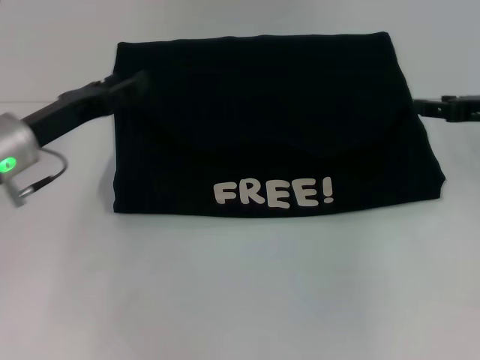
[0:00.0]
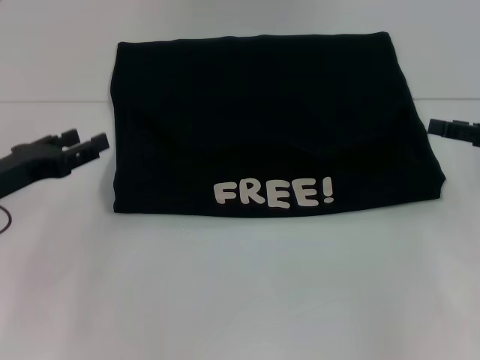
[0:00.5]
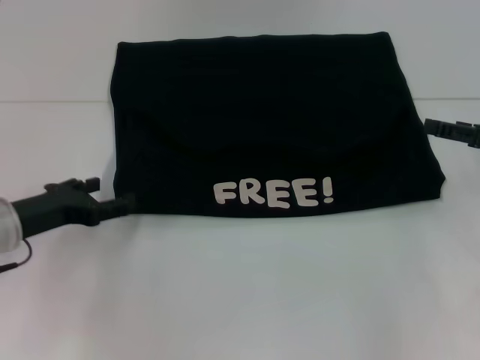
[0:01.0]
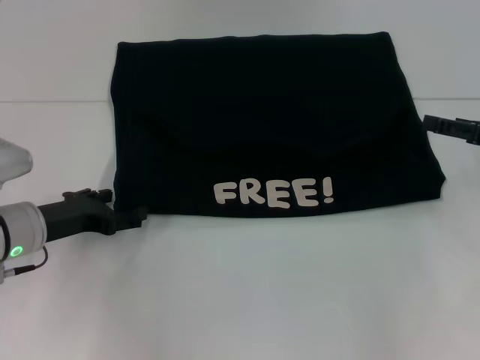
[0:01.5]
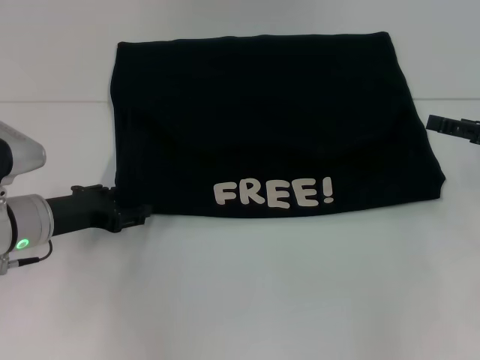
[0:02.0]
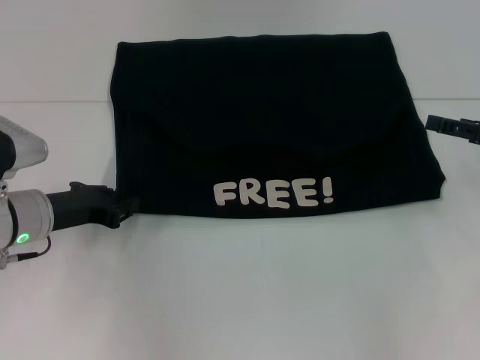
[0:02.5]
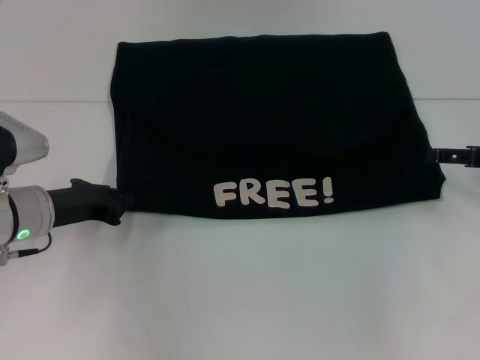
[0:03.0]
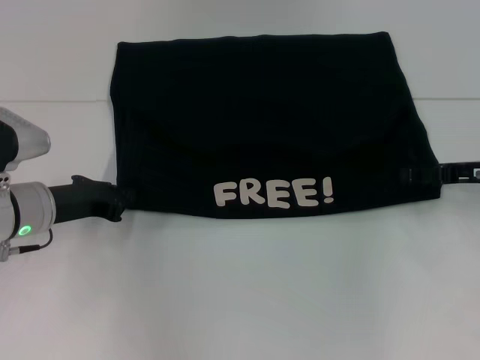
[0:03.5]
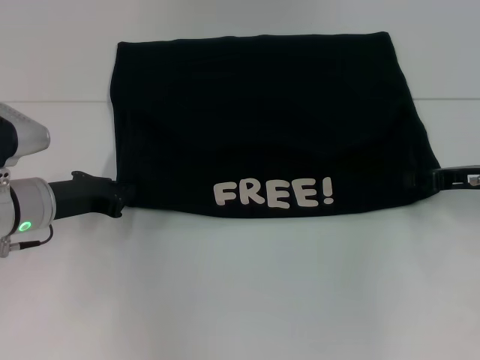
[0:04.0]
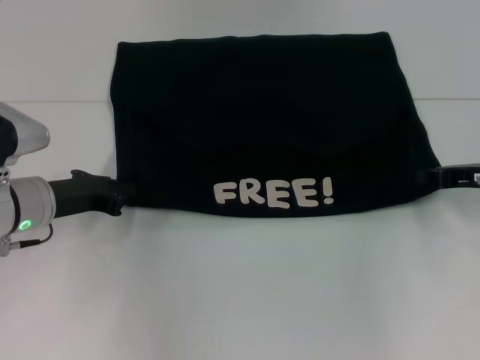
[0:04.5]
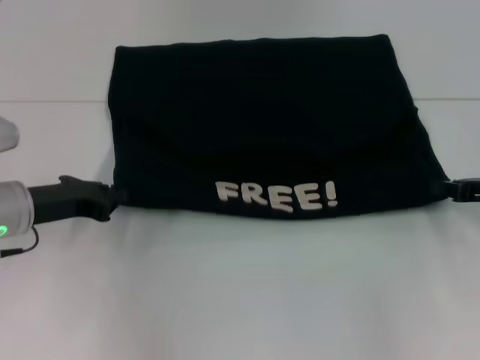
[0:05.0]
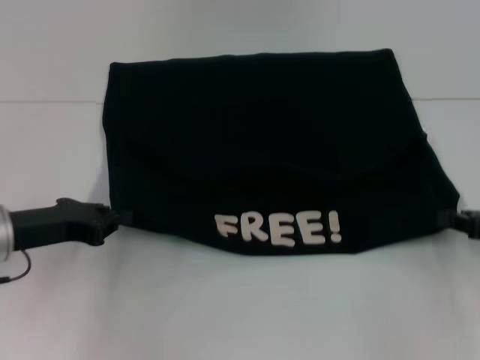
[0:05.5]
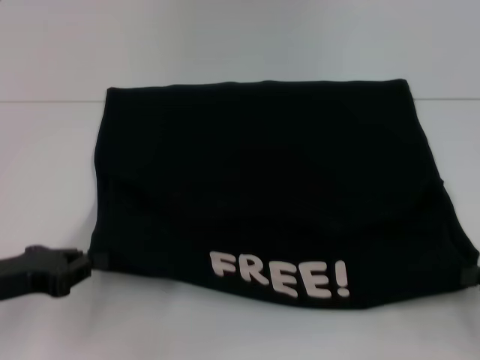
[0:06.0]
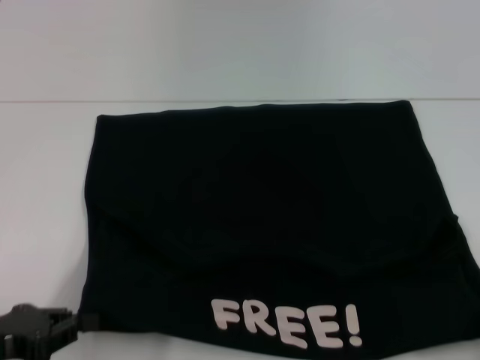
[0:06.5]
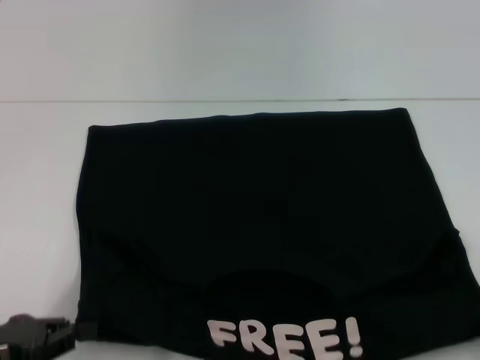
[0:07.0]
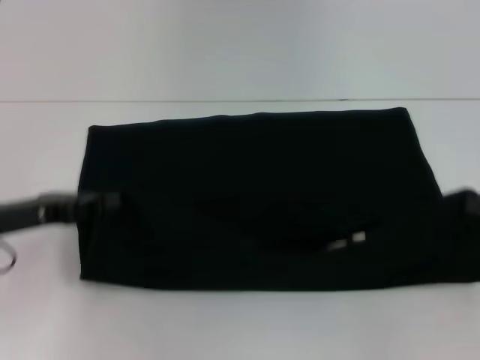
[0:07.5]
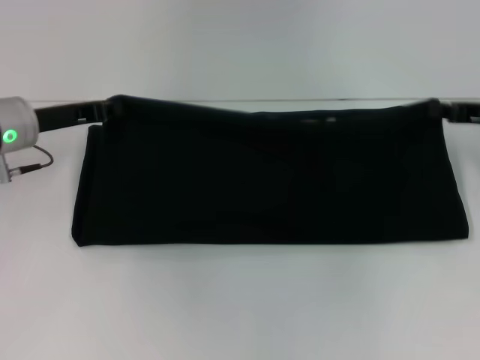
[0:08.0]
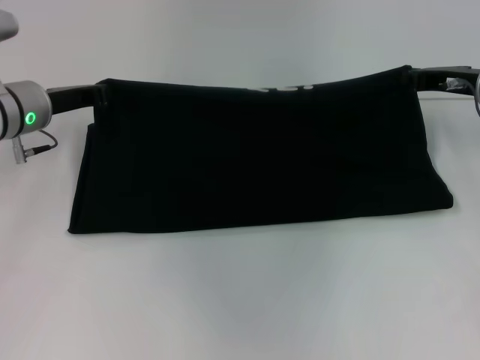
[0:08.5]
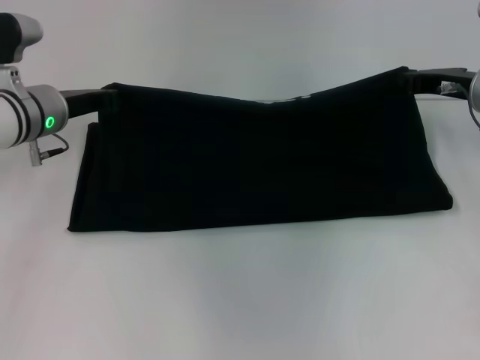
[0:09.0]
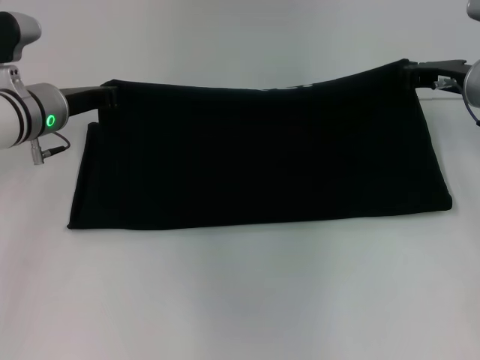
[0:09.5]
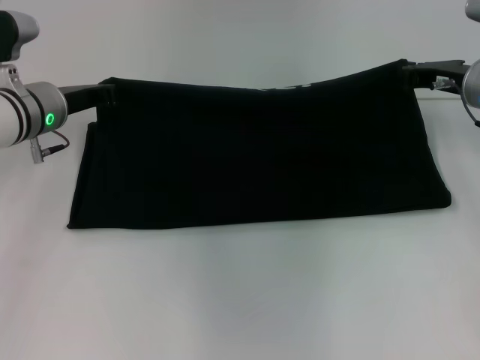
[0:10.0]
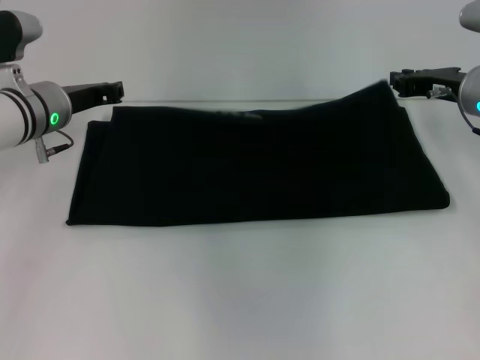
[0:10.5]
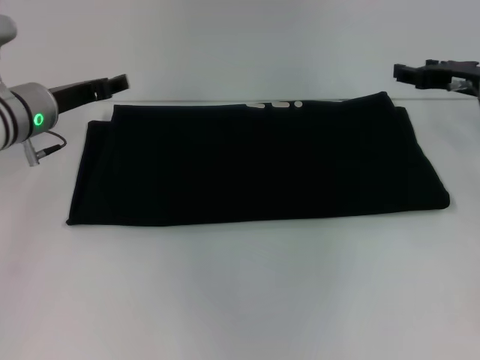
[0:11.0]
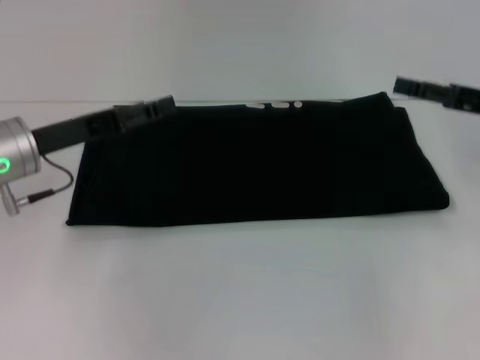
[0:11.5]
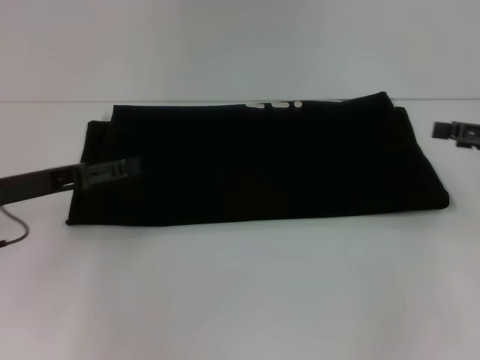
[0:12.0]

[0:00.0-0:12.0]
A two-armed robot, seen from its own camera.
Step, 0:00.0 to 0:06.5: Pull the clothes with your left hand.
Step, 0:00.0 to 0:06.5: Pull the clothes with your right hand.
Step, 0:07.0 to 0:11.0: Fold the clothes with your right hand.
0:00.0 to 0:02.0: The right gripper ends up roughly 5 cm from where it was. Meanwhile the left gripper goes some 5 cm downward.
0:02.0 to 0:04.0: The right gripper changes place by approximately 5 cm, and closes its fingers, while the left gripper closes its fingers.
0:04.0 to 0:06.0: The left gripper is displaced backward and to the left by some 10 cm. The right gripper moves backward and to the right, some 15 cm, and closes up.
0:06.0 to 0:08.0: The two grippers go some 15 cm forward.
0:08.0 to 0:10.0: The right gripper shifts roughly 5 cm to the left.
0:10.0 to 0:12.0: The right gripper heads backward and to the right, covering some 15 cm, and opens its fingers; the left gripper moves backward and to the left, about 15 cm, and opens.

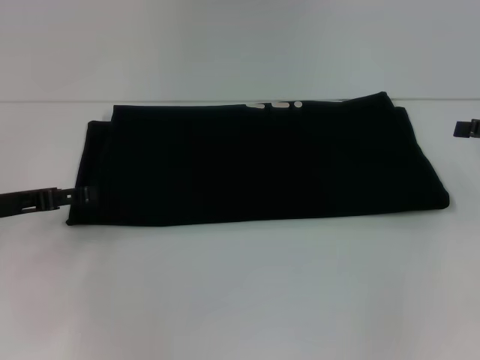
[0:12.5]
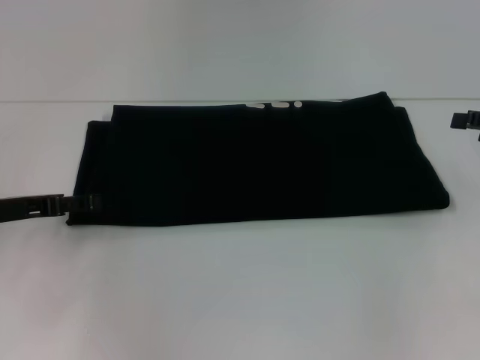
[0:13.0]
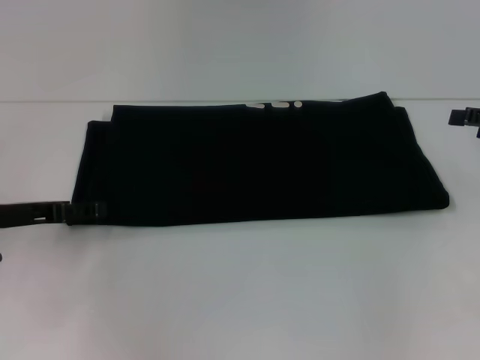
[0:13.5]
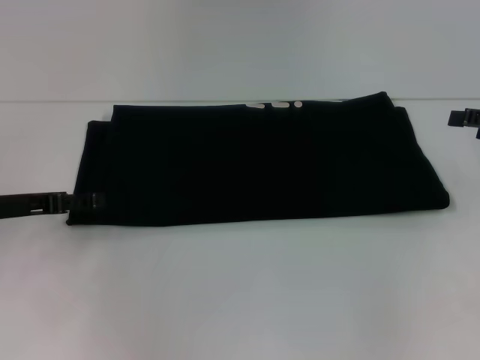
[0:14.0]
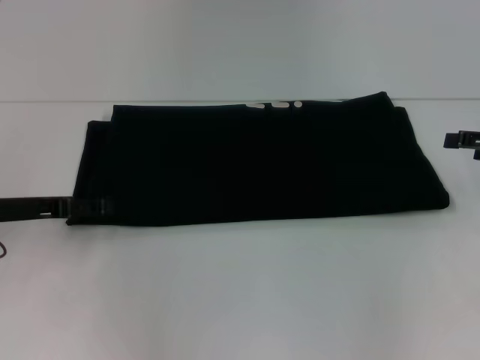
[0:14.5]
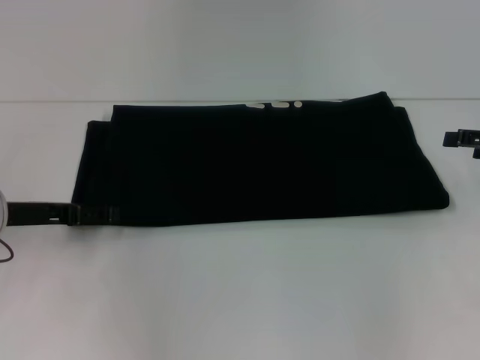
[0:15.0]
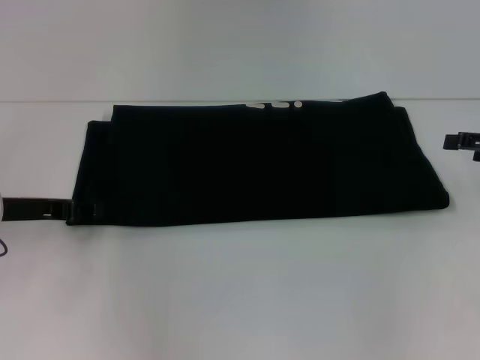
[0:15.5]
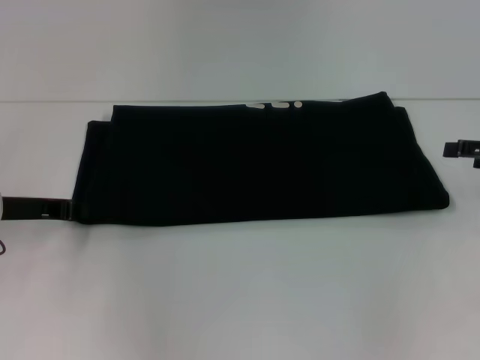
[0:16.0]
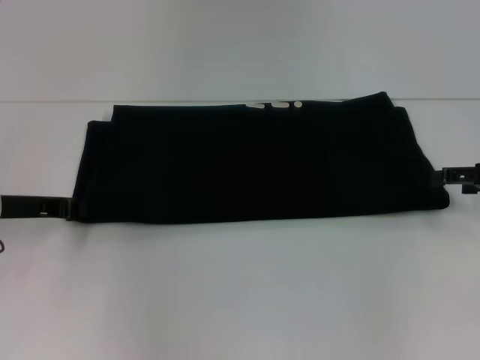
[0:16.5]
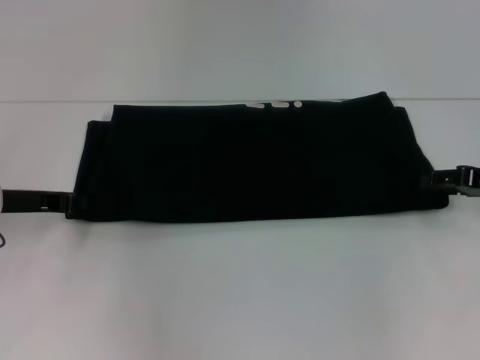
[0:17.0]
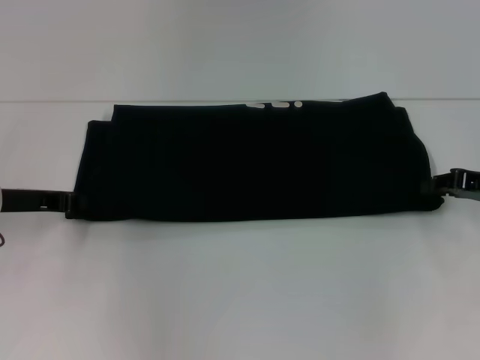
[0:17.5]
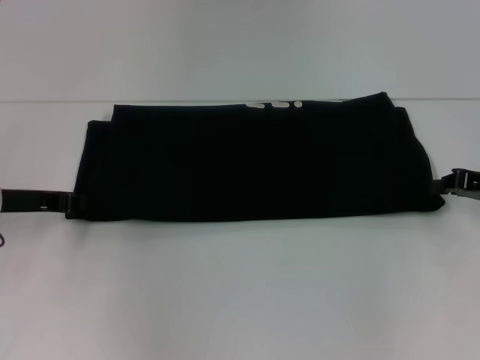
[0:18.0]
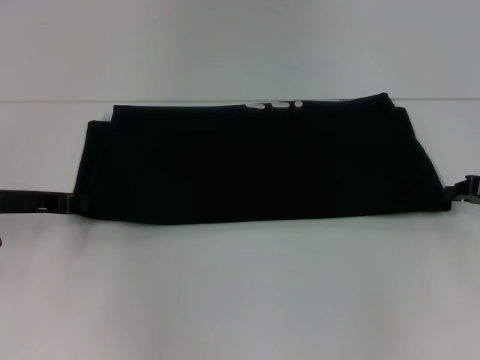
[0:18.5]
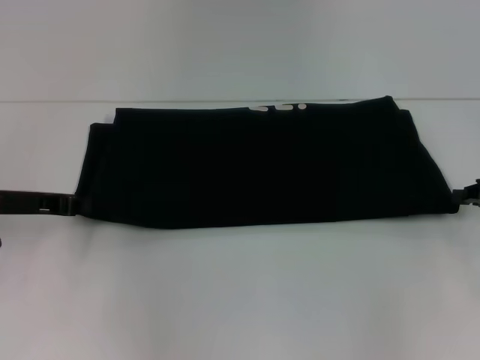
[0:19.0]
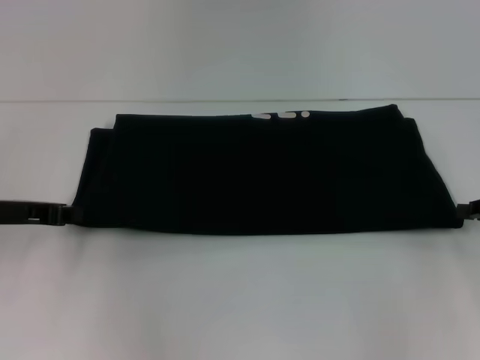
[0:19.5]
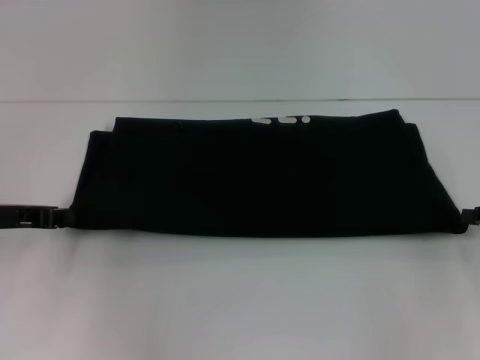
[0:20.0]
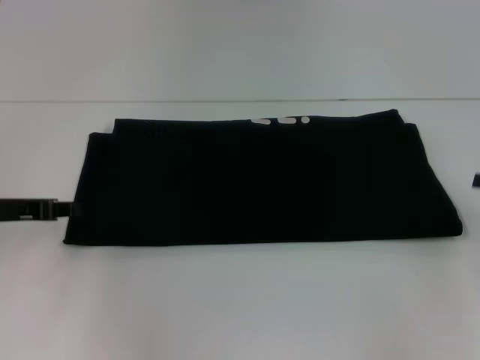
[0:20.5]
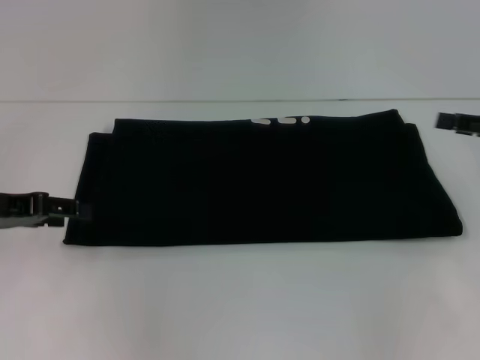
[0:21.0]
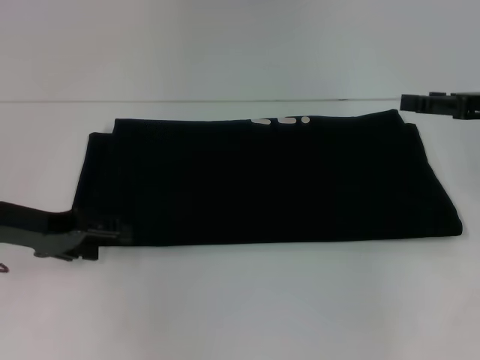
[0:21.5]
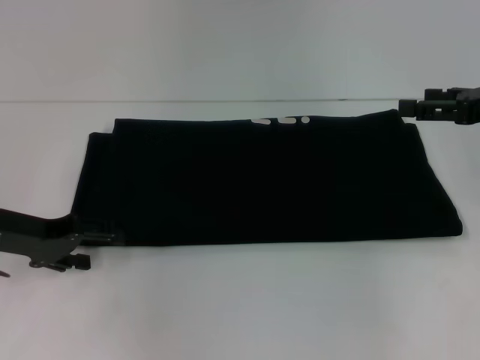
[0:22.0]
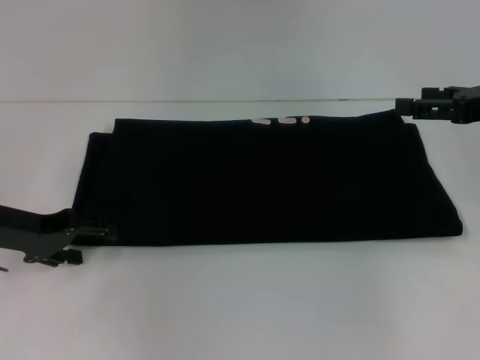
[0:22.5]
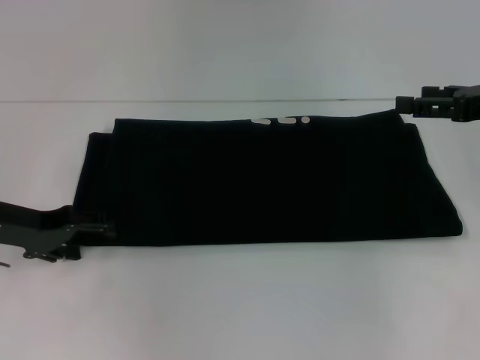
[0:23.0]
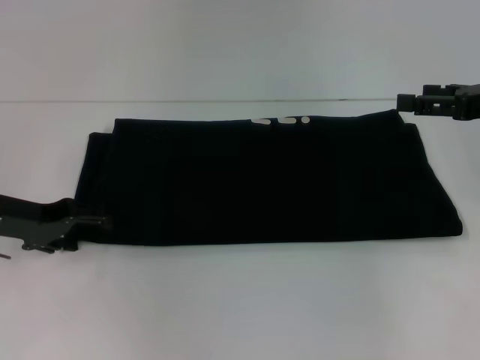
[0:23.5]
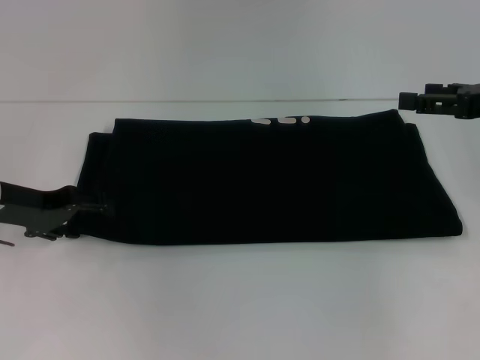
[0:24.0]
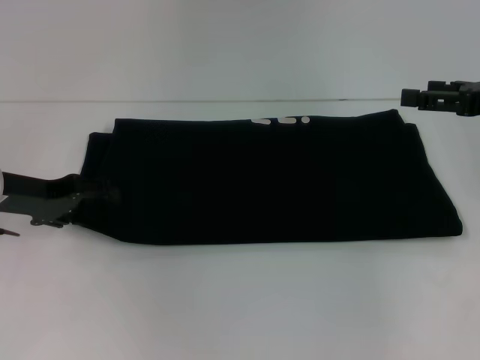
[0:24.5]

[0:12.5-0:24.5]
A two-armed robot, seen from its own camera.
0:12.5 to 0:14.5: The grippers move only a little.
0:14.5 to 0:16.5: The left gripper closes its fingers.
0:16.5 to 0:18.5: The right gripper closes its fingers.
0:18.5 to 0:20.5: The right gripper changes place by about 5 cm.
0:20.5 to 0:22.5: The left gripper opens. The right gripper heads upward, to the left and forward, covering roughly 10 cm, and opens.
0:22.5 to 0:24.5: There are only small adjustments of the grippers.

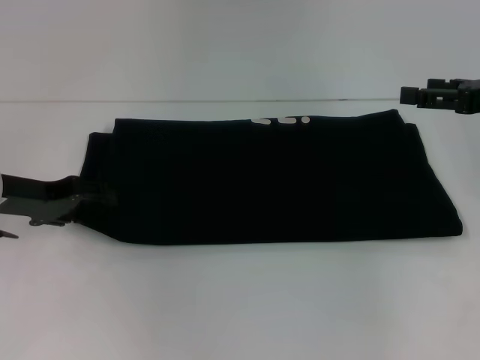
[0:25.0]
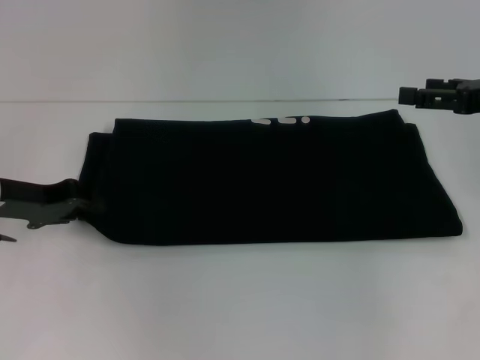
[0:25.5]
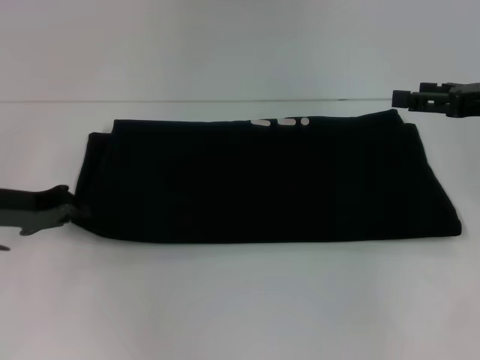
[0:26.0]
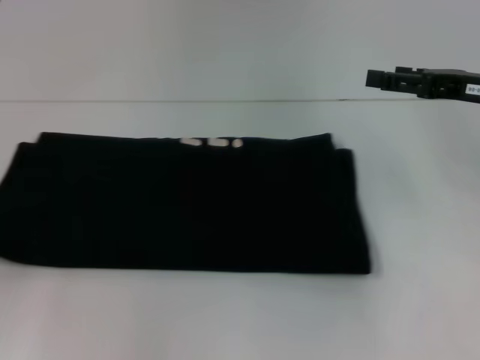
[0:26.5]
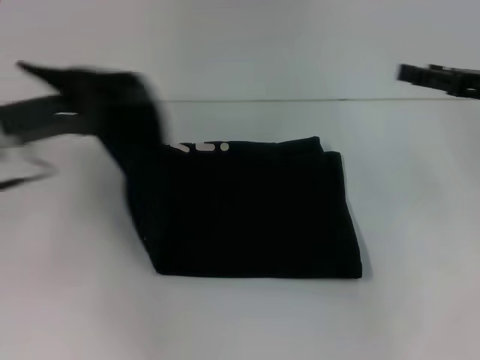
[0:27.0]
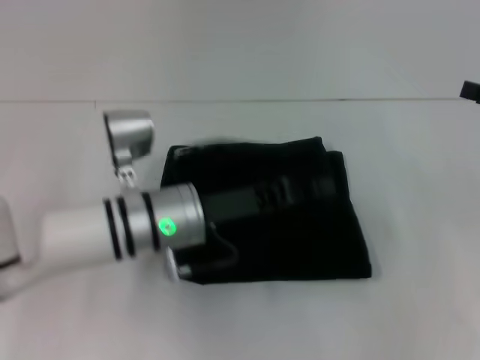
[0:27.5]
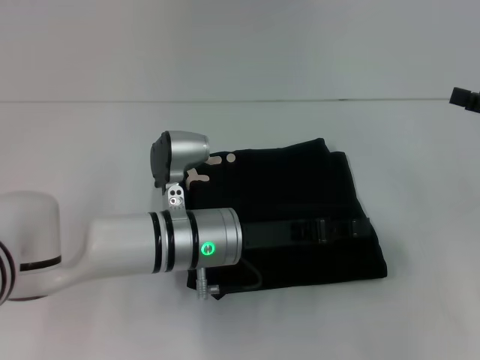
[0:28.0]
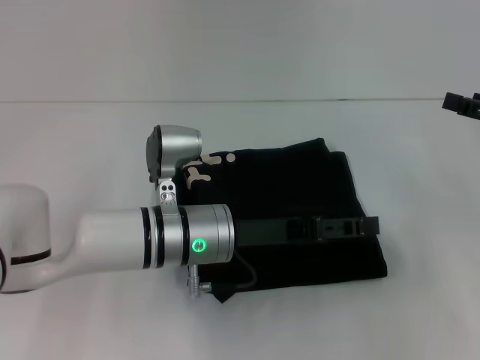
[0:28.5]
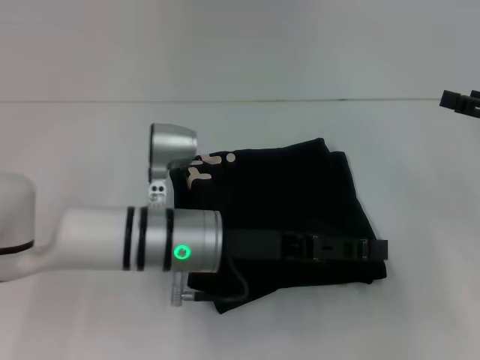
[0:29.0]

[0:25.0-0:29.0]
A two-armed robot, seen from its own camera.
0:25.0 to 0:27.0: The left gripper goes some 5 cm upward, goes to the left and returns, approximately 10 cm each way, and closes.
0:27.0 to 0:29.0: The right gripper moves some 5 cm. Meanwhile the left gripper is displaced to the right and downward by roughly 20 cm, and opens its fingers.
